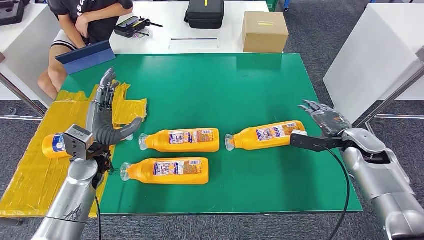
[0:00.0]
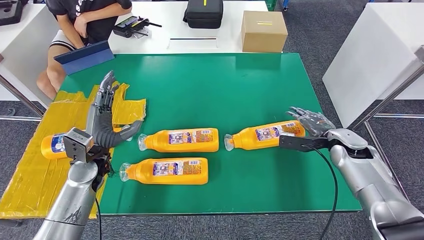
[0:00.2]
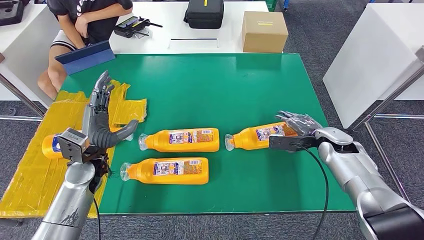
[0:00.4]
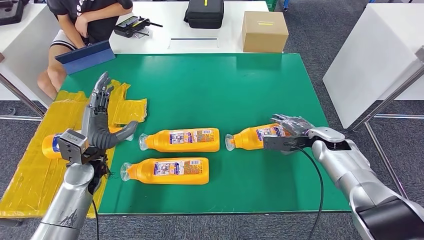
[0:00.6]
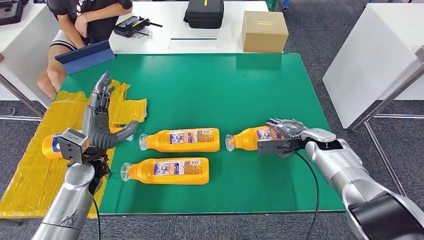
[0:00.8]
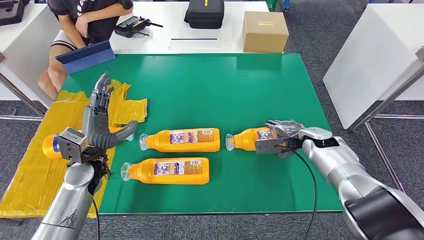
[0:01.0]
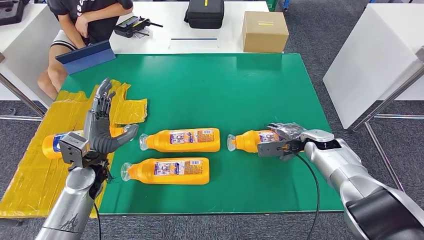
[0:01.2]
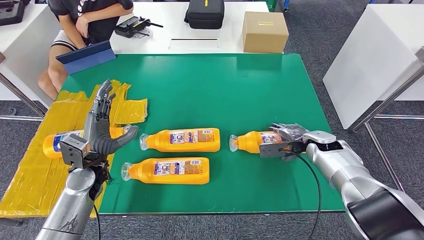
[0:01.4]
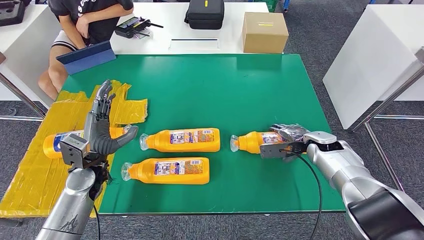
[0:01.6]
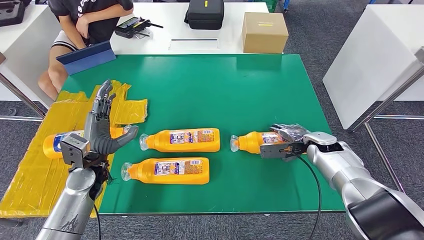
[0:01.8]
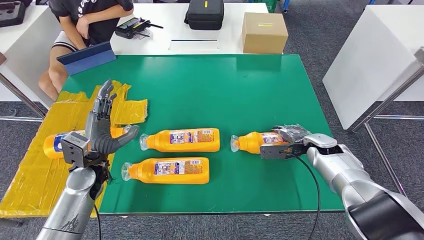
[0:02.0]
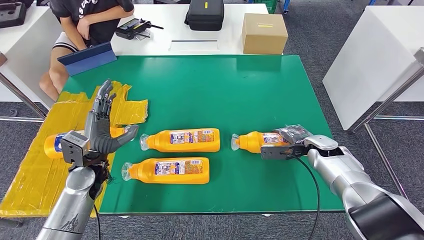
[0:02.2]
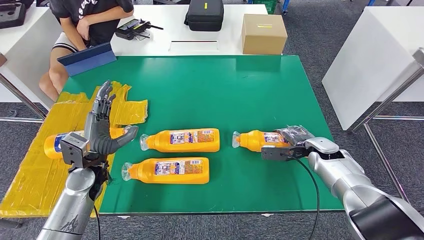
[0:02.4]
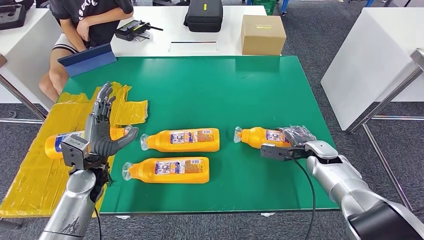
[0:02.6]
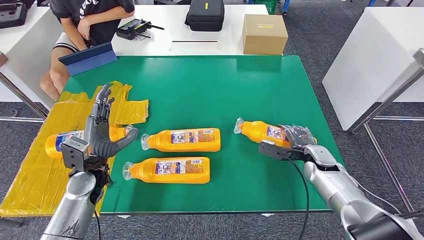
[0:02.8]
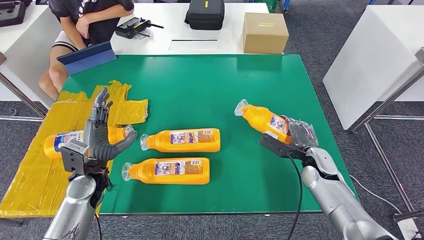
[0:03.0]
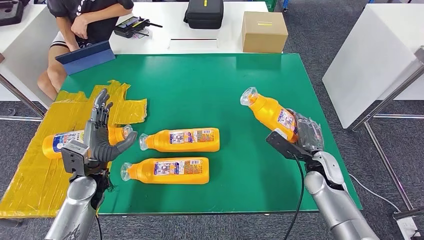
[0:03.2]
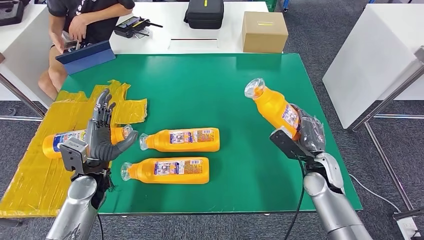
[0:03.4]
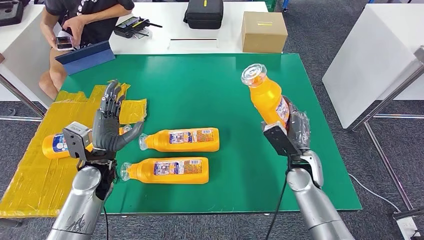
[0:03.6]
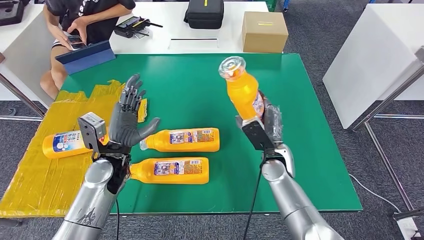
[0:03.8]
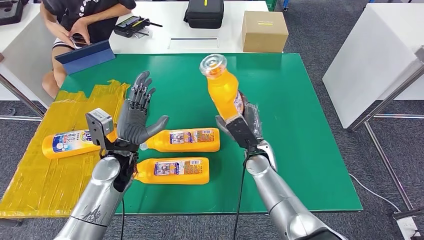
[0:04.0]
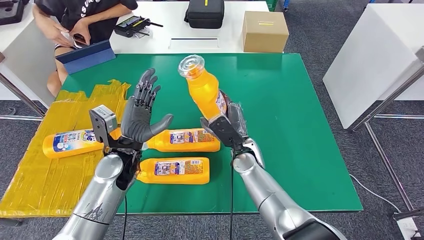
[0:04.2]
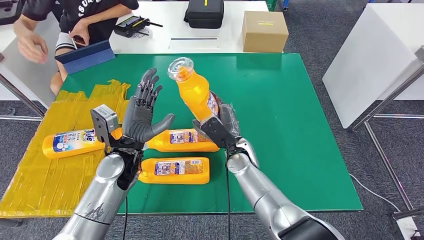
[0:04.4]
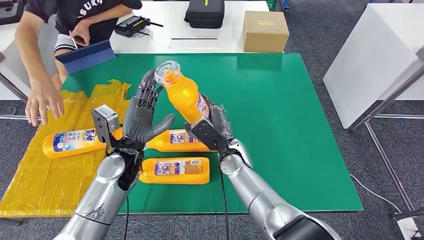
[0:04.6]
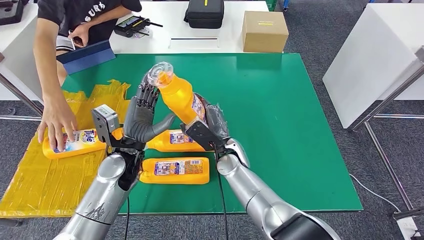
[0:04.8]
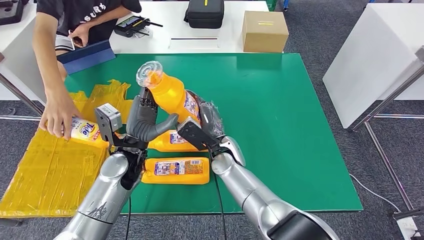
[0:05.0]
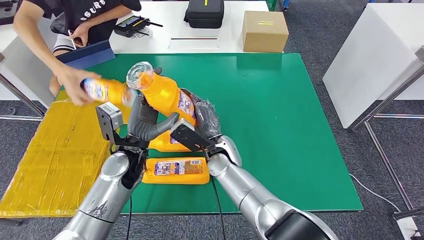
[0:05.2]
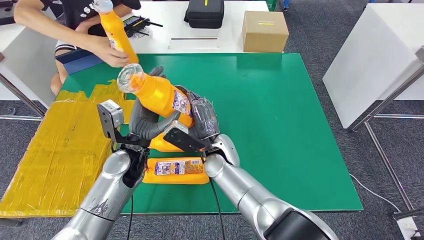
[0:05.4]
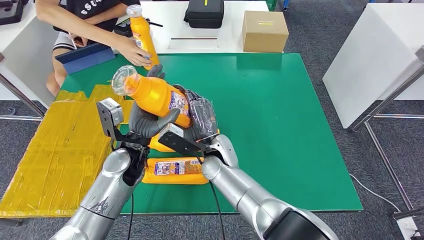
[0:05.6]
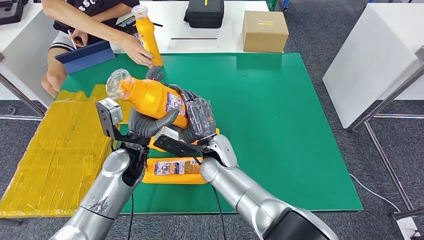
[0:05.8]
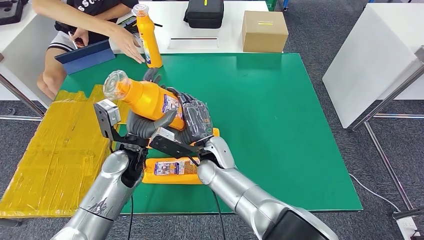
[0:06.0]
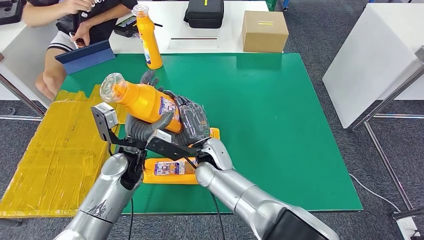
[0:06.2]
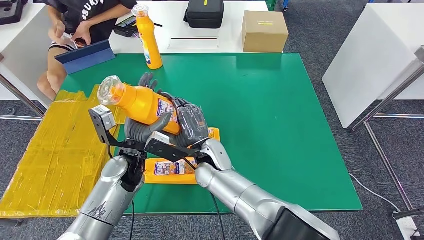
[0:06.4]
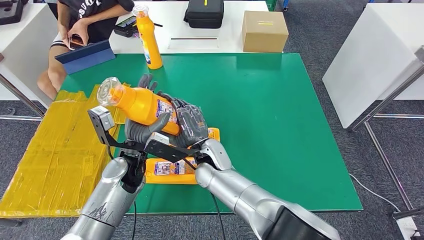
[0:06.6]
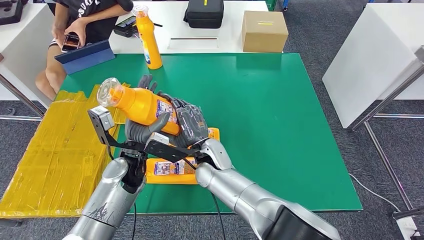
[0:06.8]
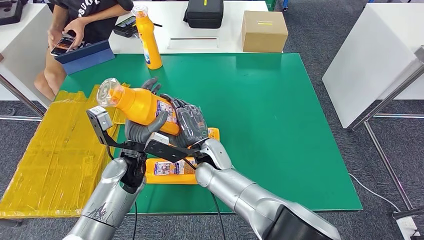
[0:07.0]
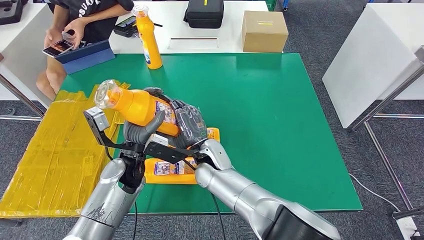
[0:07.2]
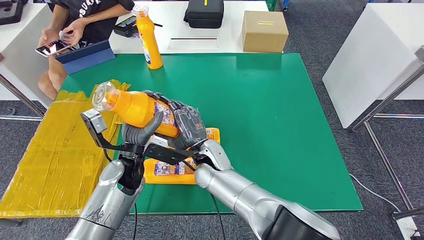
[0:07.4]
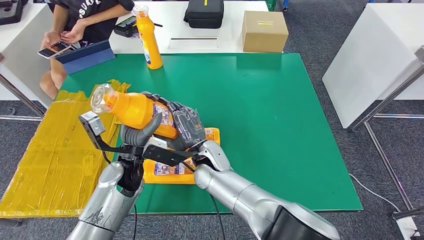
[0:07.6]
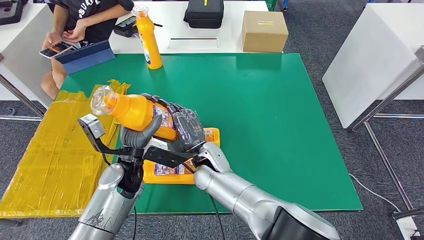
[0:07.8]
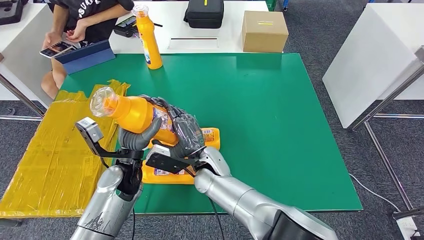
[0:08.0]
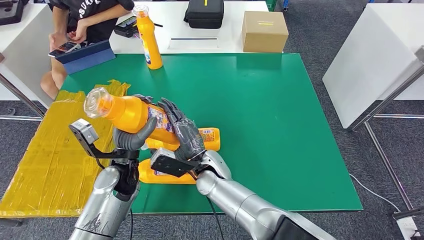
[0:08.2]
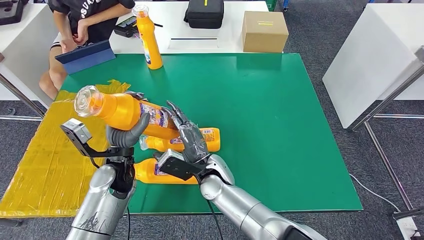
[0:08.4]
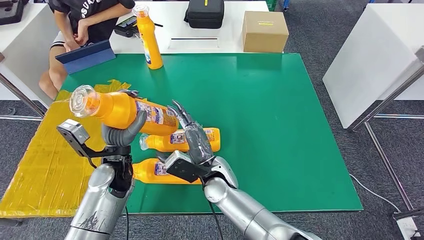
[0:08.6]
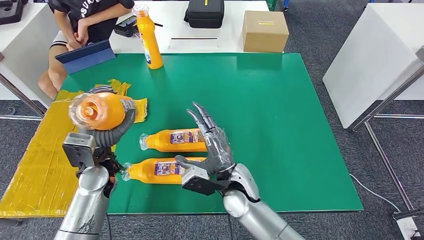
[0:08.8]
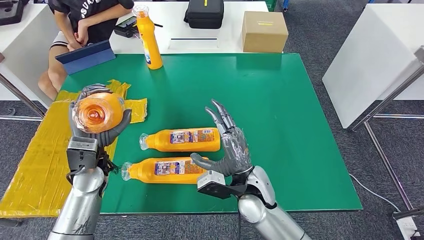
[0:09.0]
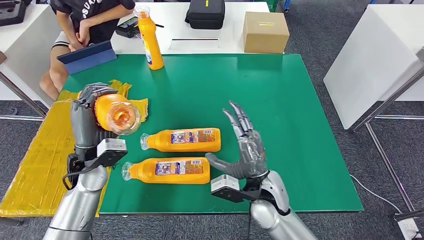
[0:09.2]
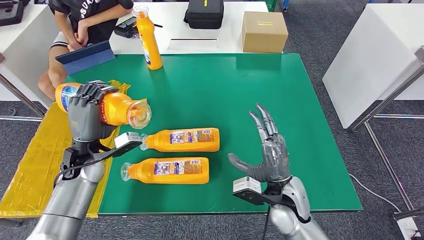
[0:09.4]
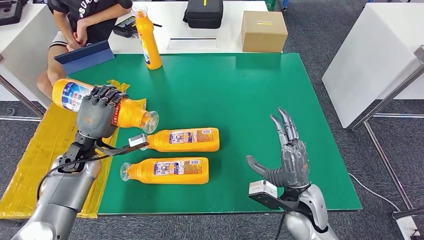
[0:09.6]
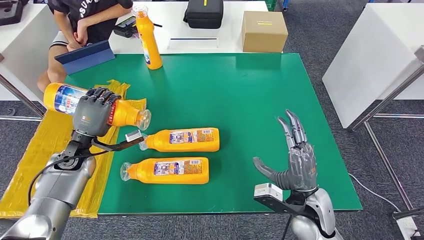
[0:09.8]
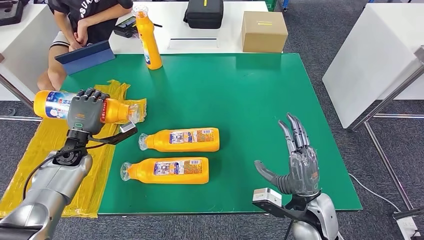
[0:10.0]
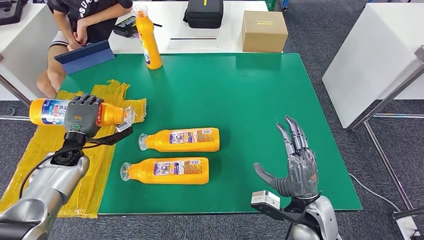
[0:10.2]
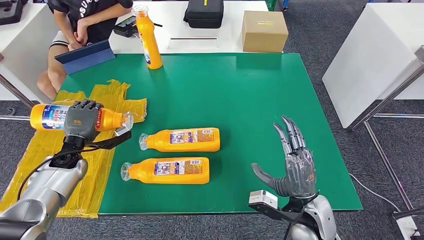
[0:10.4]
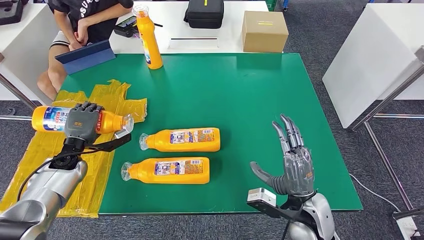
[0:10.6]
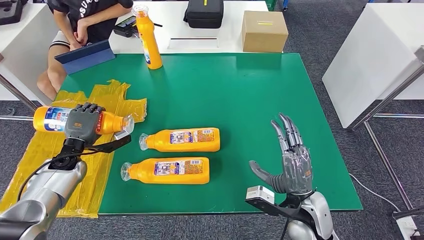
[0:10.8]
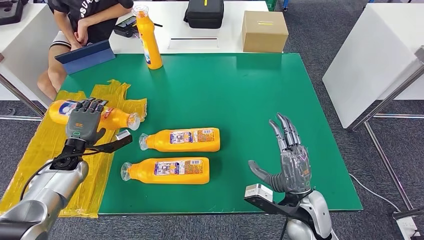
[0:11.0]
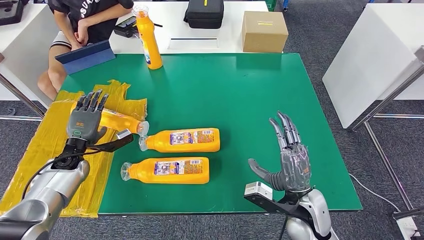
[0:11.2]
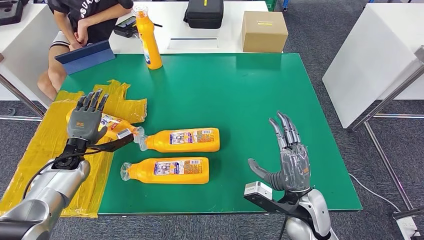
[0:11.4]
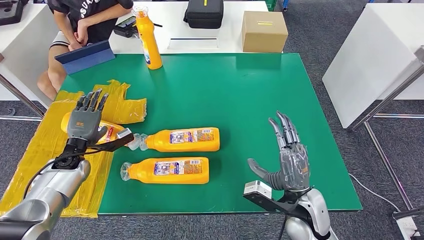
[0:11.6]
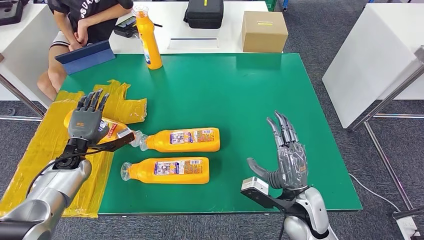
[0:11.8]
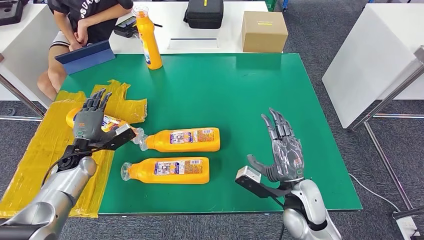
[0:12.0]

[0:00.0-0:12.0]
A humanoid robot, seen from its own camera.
Step, 0:00.0 to 0:05.8: Pick up the fast-moving consumer goods bottle from the table.
Step, 0:06.0 to 0:11.8: Flip the fast-moving consumer goods bottle to the front side.
0:00.0 to 0:01.6: The right hand moves to the left and downward, approximately 10 cm.
0:01.6 to 0:03.0: The right hand goes some 5 cm backward.
0:06.0 to 0:07.6: The hands make only small movements.
0:07.6 to 0:09.0: The right hand shifts approximately 15 cm to the right and backward; the left hand goes some 10 cm to the left.

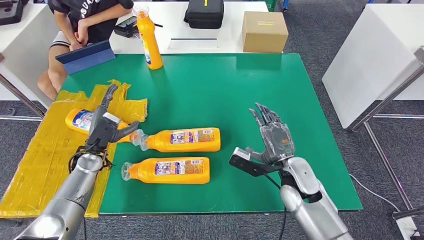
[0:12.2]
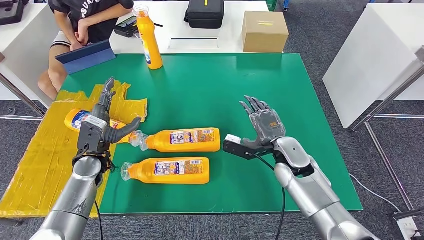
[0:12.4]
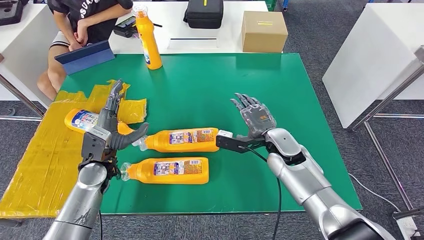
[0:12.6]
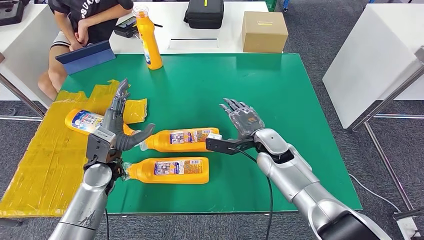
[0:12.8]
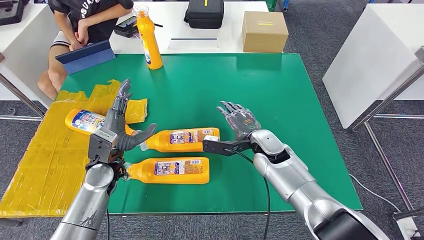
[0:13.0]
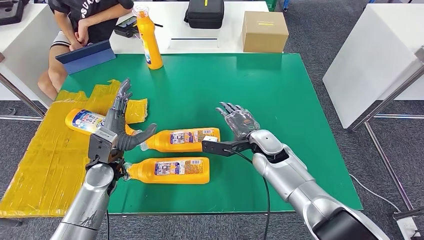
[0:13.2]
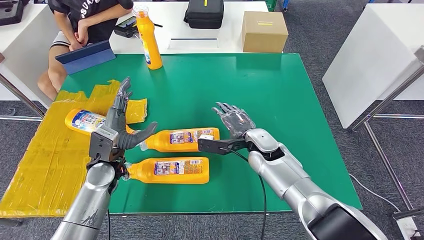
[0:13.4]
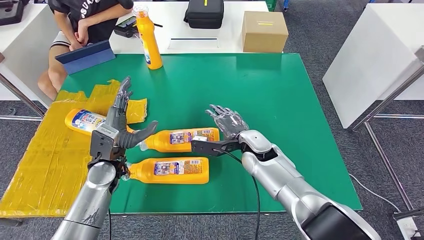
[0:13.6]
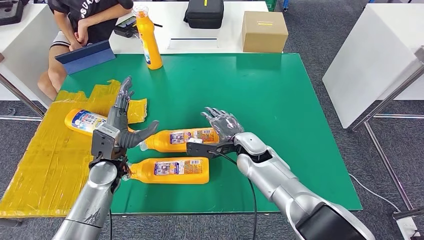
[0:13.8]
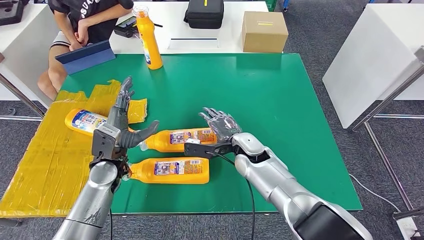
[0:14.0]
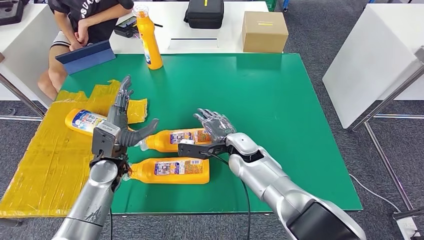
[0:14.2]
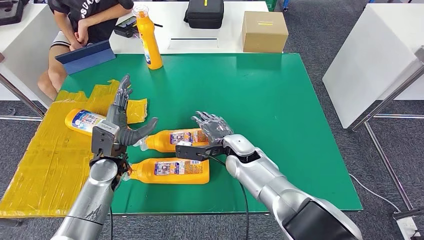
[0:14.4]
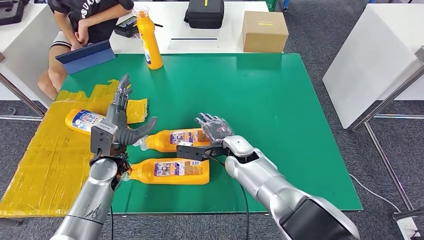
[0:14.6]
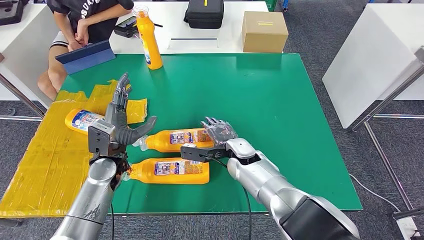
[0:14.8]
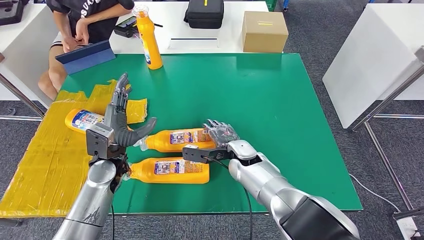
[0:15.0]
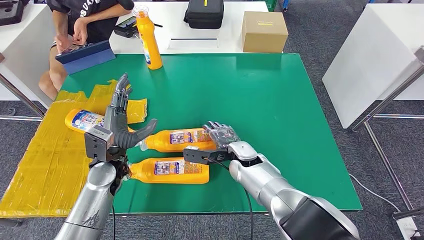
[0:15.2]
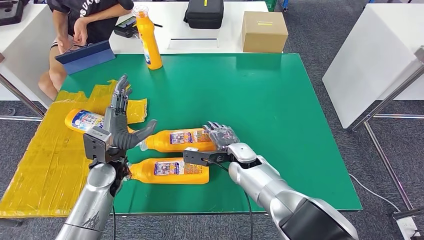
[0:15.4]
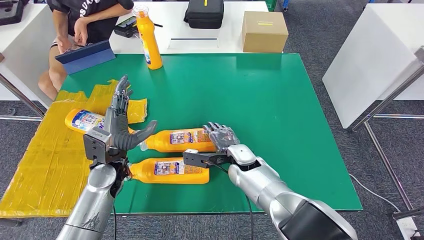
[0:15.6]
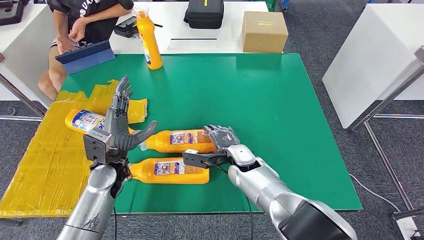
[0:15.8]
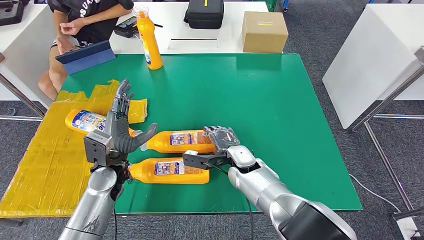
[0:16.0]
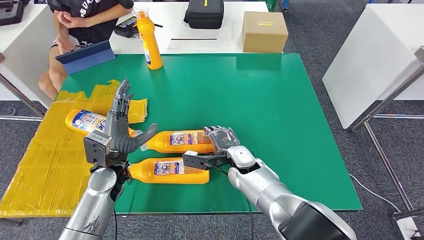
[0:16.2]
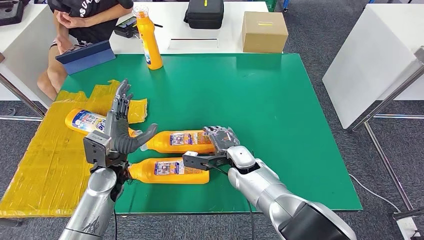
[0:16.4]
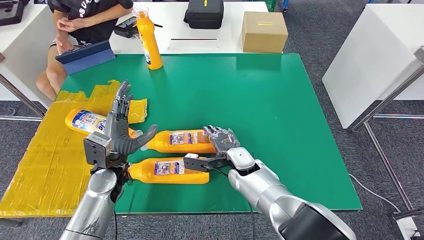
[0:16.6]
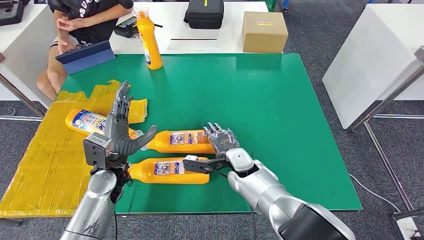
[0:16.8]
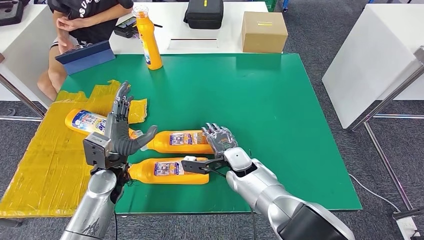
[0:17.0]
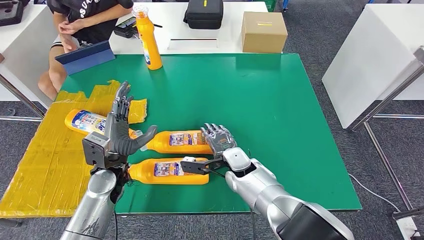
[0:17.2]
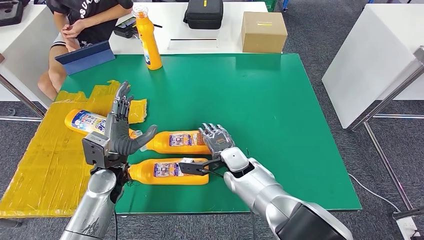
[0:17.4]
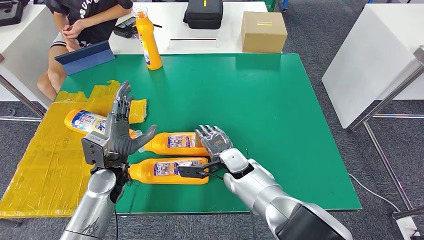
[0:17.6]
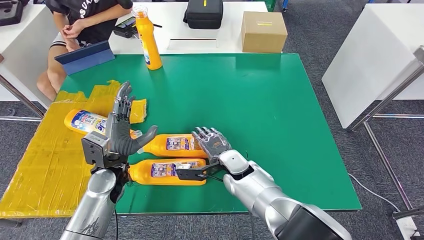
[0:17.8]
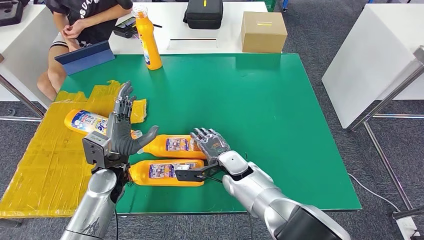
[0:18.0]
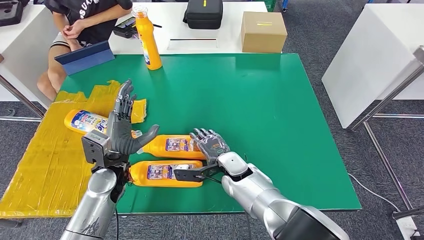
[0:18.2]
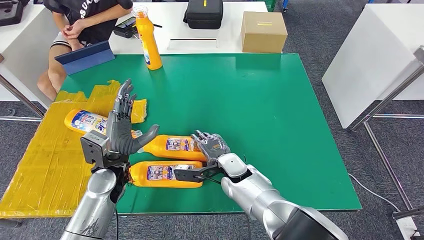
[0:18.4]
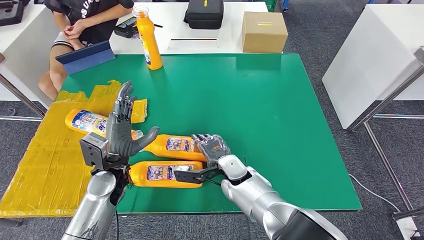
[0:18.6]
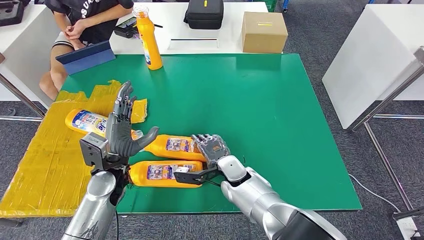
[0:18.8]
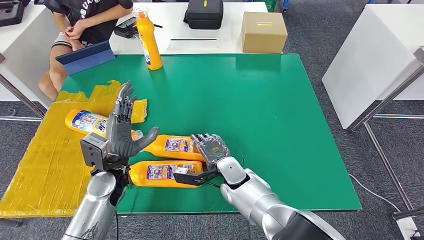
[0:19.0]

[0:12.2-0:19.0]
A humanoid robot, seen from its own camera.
0:12.2 to 0:13.6: The right hand is displaced to the left and forward by approximately 15 cm. Meanwhile the left hand goes approximately 10 cm to the right.
0:13.6 to 0:15.0: The right hand shifts by roughly 5 cm.
0:15.0 to 0:19.0: There are only small adjustments of the hands.
